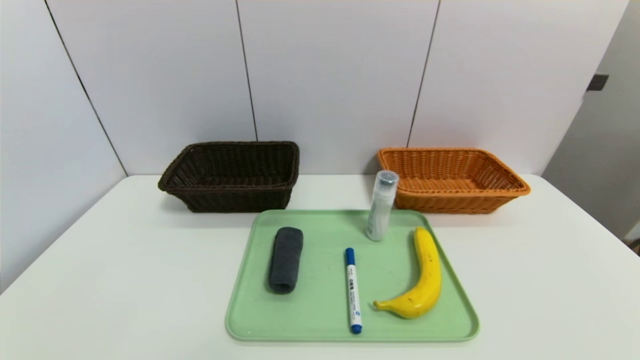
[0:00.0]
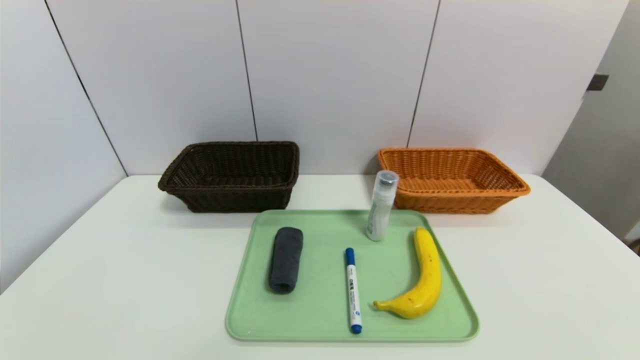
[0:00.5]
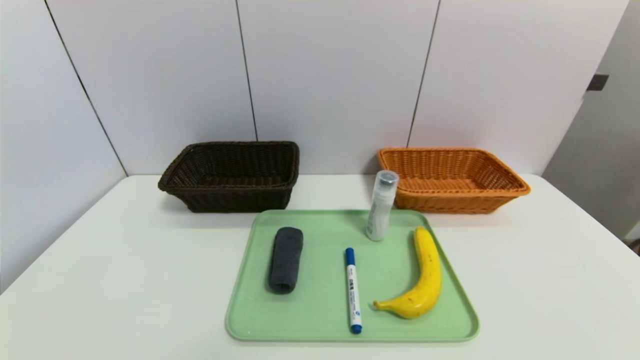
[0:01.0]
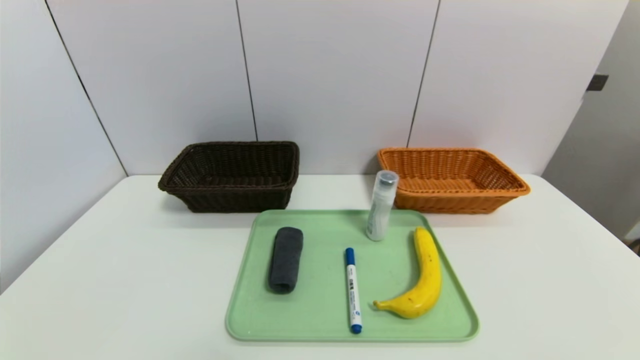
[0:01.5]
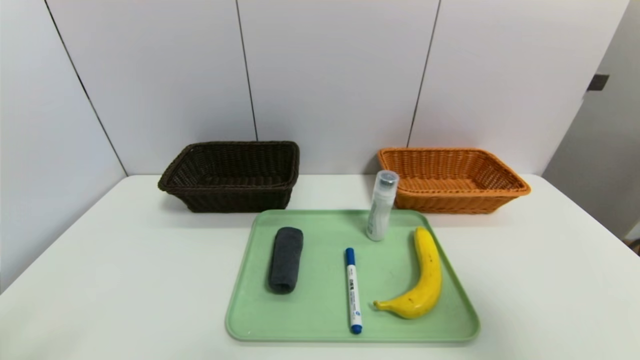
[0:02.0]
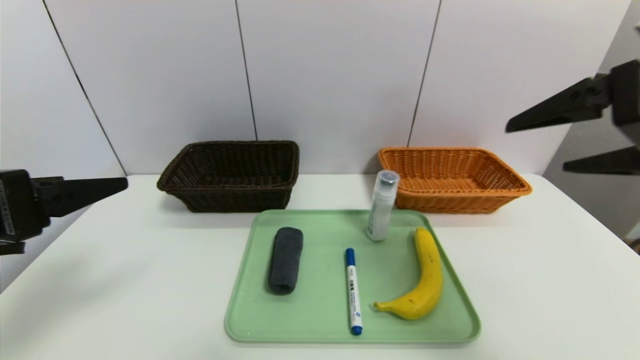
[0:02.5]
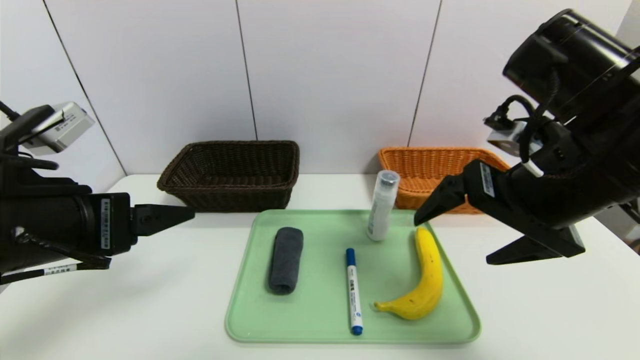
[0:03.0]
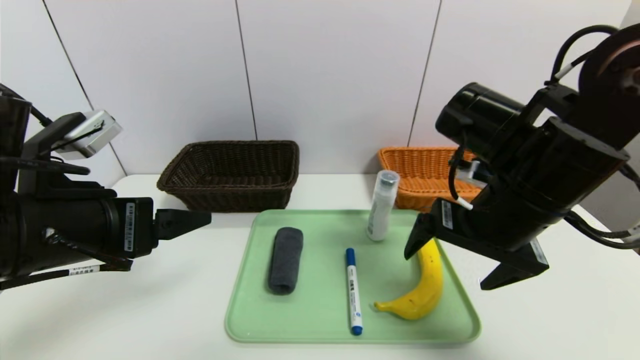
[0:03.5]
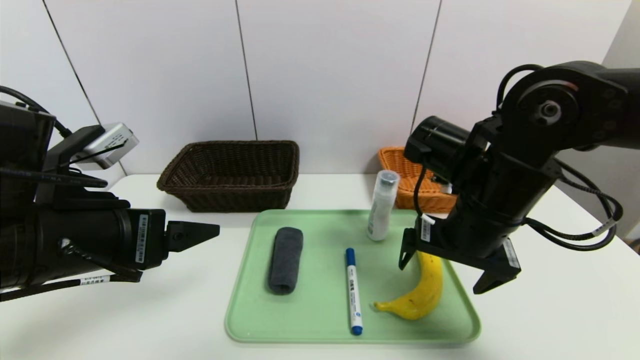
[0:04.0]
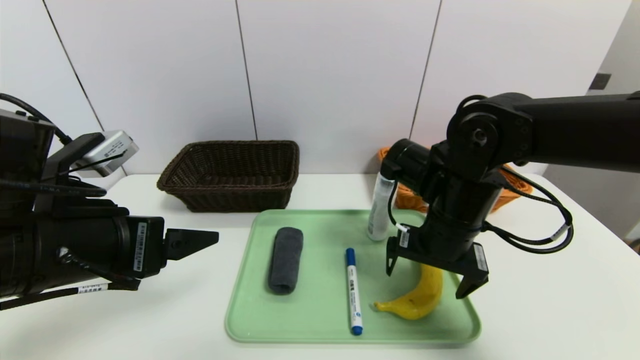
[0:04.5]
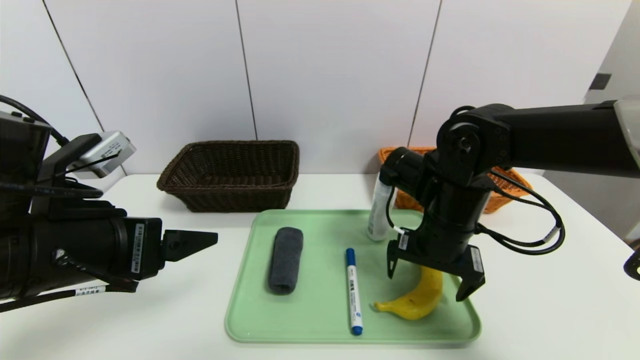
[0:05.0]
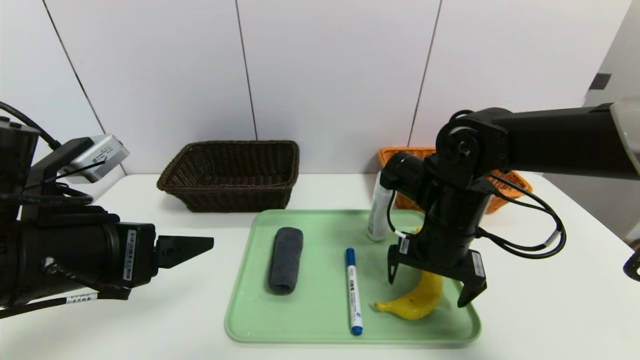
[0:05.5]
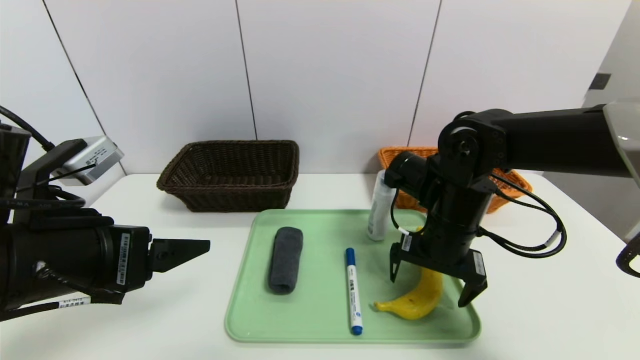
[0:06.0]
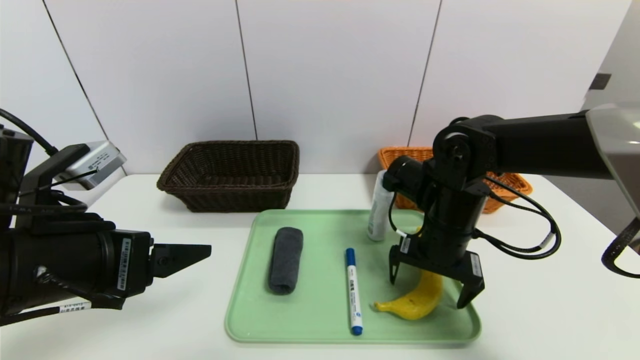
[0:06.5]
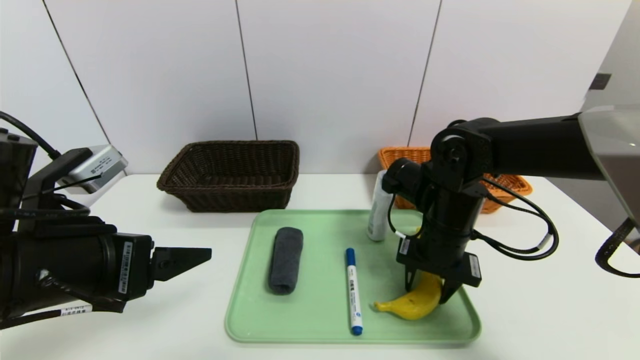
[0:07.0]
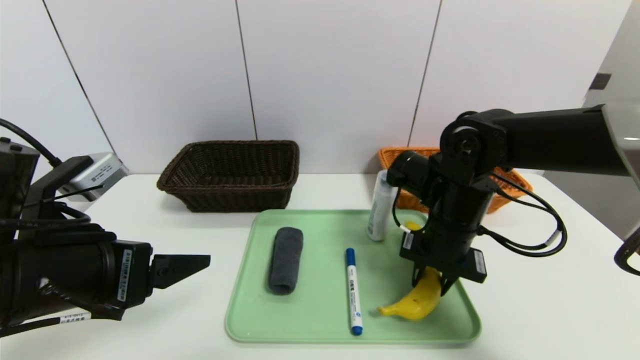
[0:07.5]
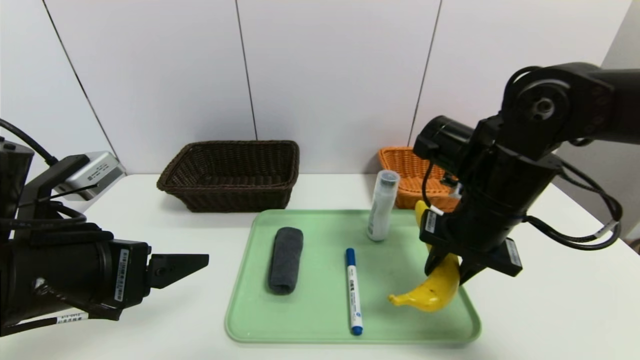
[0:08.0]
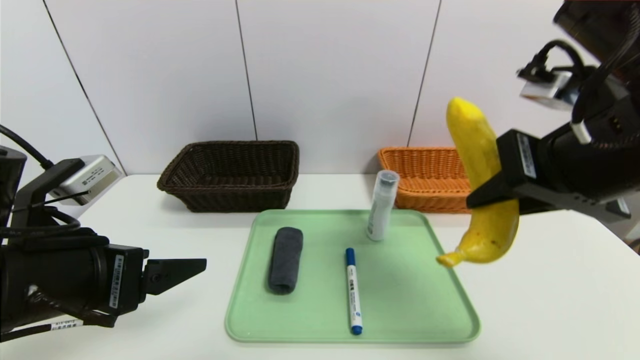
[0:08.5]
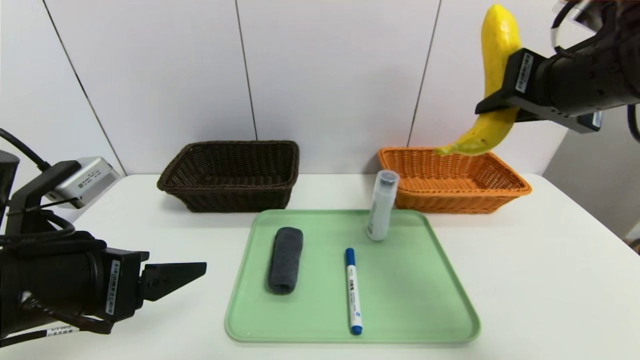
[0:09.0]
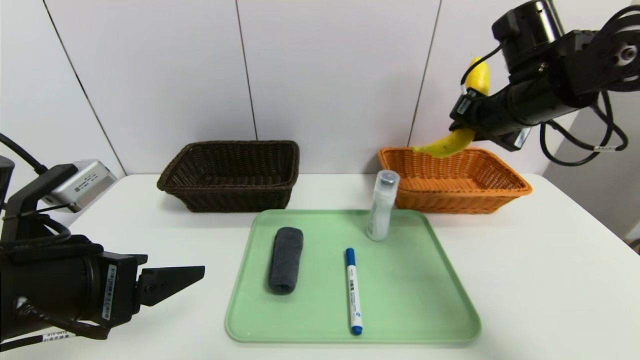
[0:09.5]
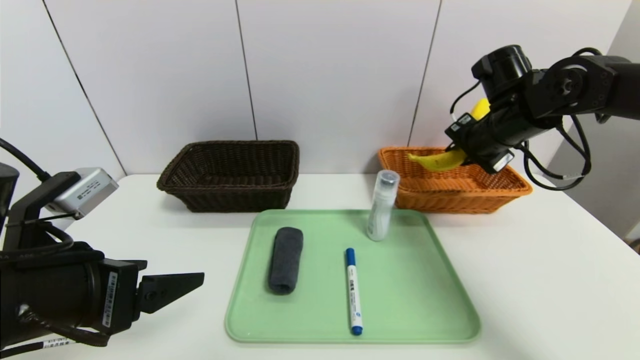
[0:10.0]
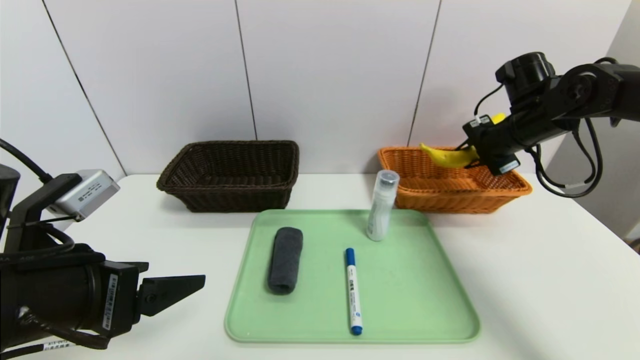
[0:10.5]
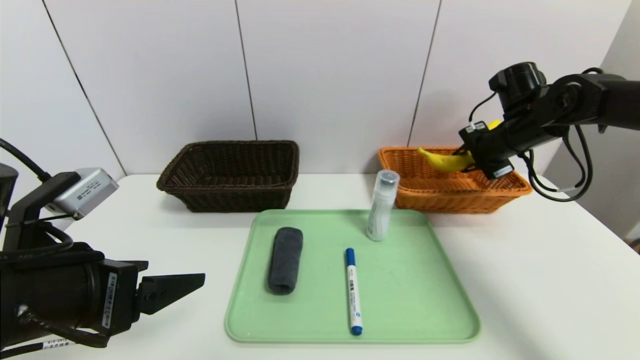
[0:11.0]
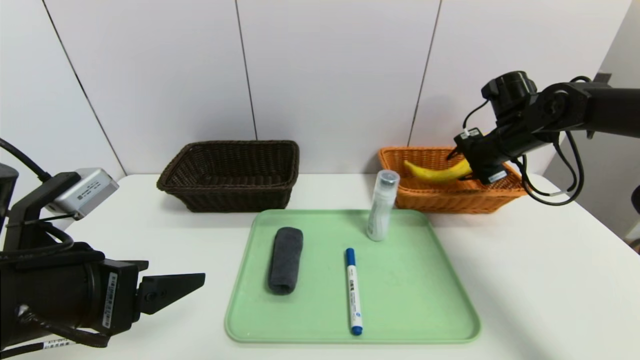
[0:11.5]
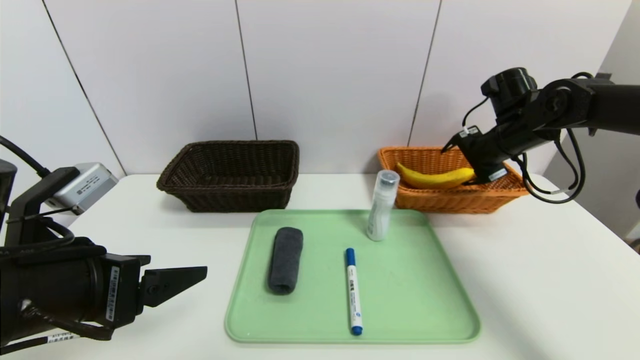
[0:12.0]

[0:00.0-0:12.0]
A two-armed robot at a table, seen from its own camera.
Task of the whole recording: place the food in the right basket with the right gripper, and place the non food items in the left basket with the left gripper.
0:00.0 to 0:02.0: The right gripper travels upward by some 30 cm.
0:02.0 to 0:04.0: The right gripper shifts about 30 cm forward, to the left and downward, while the left gripper shifts some 15 cm forward and to the right.
0:04.0 to 0:06.0: The right gripper is displaced downward by some 5 cm.
0:06.0 to 0:08.0: The right gripper goes about 5 cm upward, and closes up.
0:08.0 to 0:10.0: The right gripper heads forward and to the right, covering about 15 cm.
0:10.0 to 0:12.0: The right gripper changes place by roughly 5 cm, and opens.

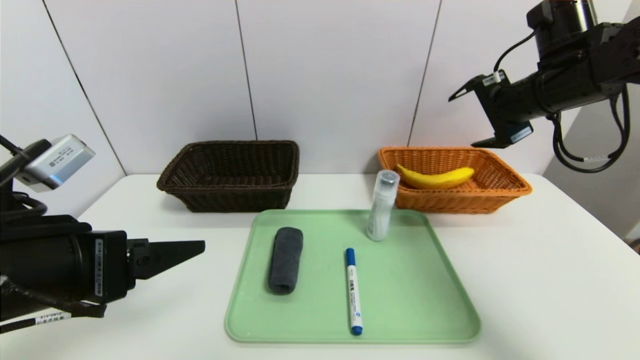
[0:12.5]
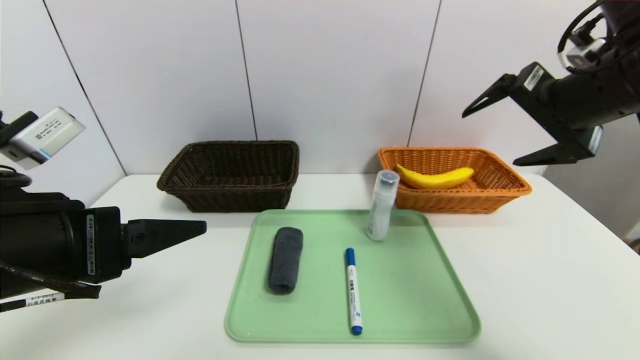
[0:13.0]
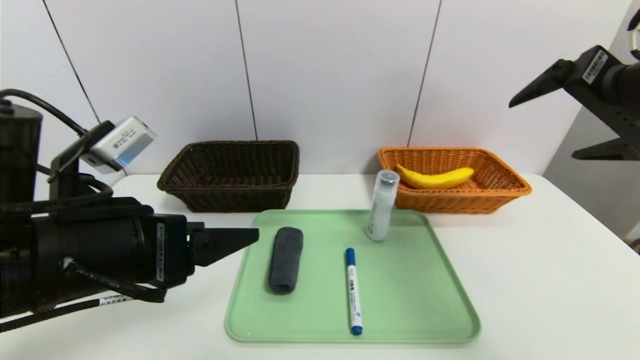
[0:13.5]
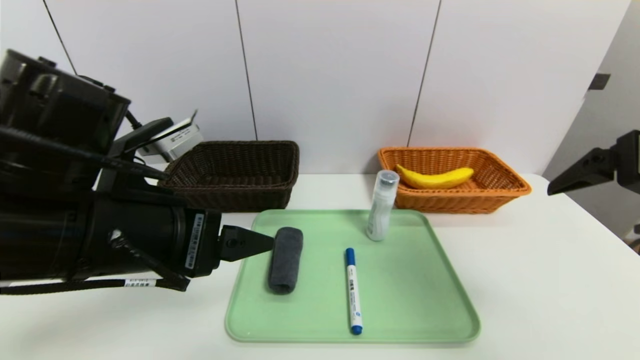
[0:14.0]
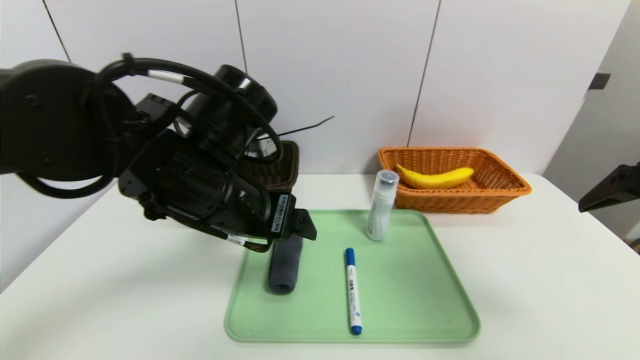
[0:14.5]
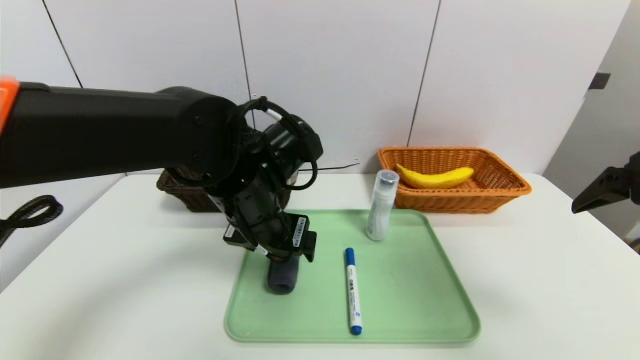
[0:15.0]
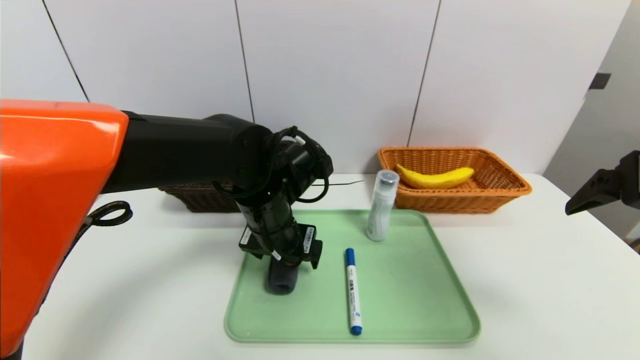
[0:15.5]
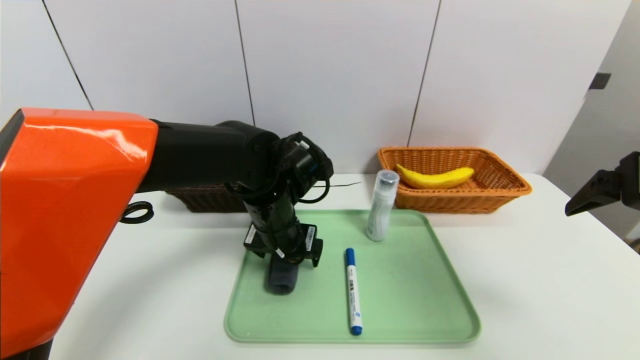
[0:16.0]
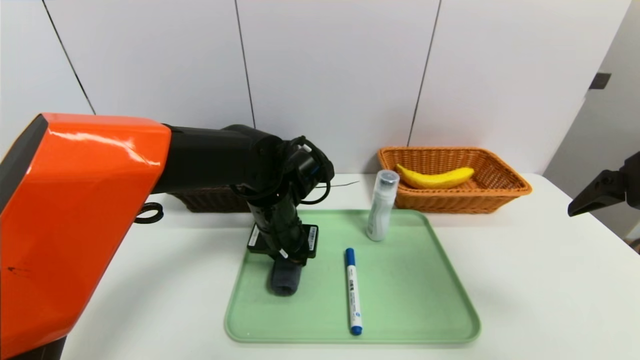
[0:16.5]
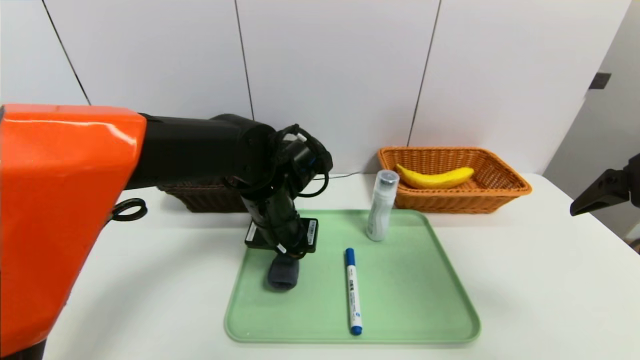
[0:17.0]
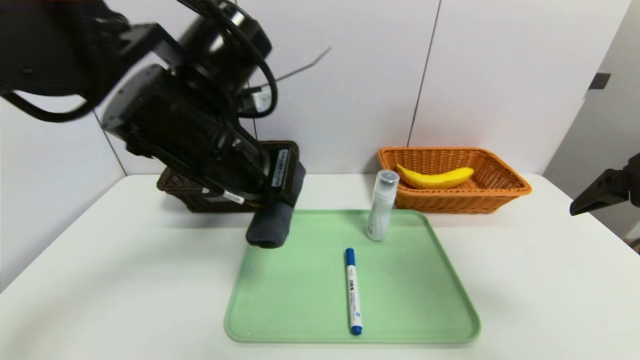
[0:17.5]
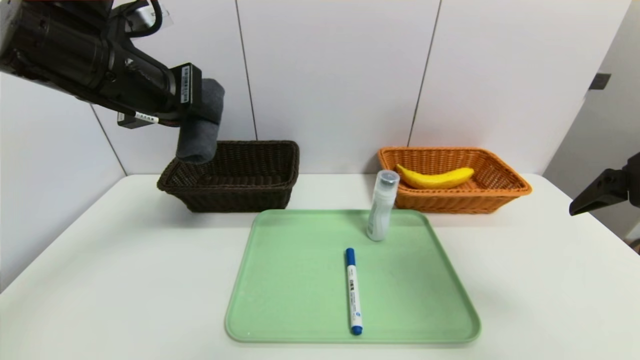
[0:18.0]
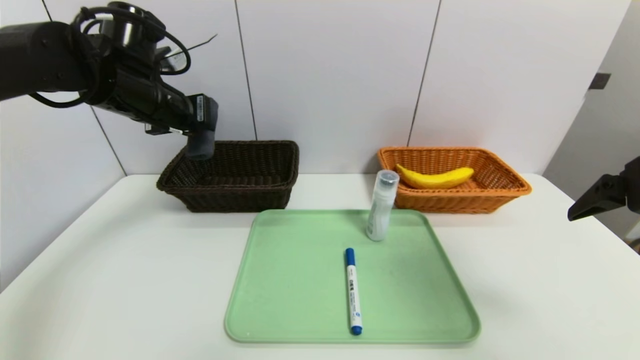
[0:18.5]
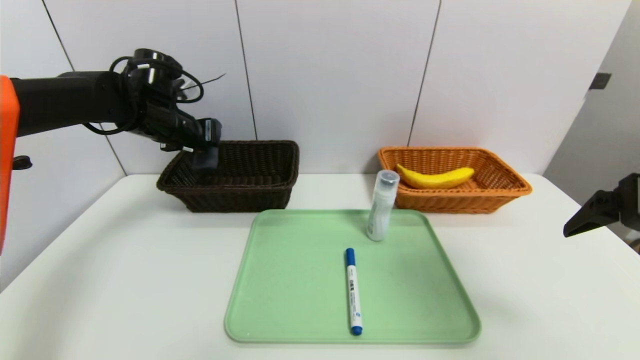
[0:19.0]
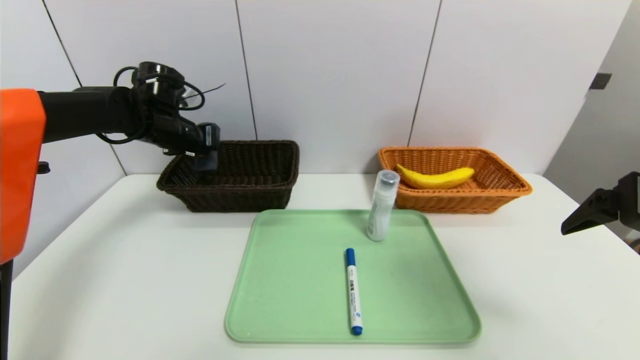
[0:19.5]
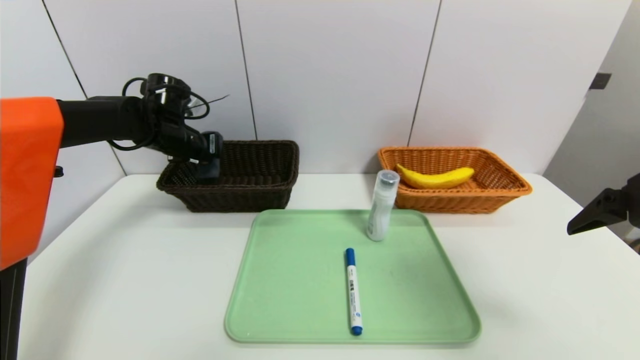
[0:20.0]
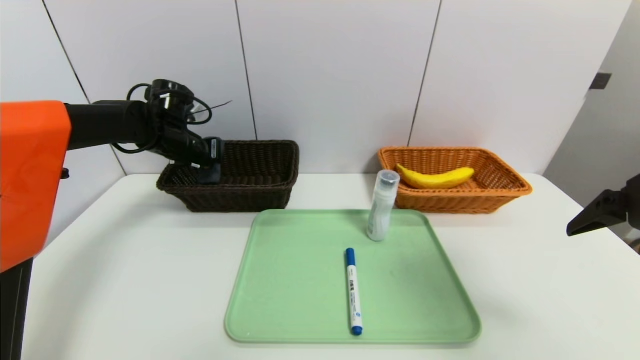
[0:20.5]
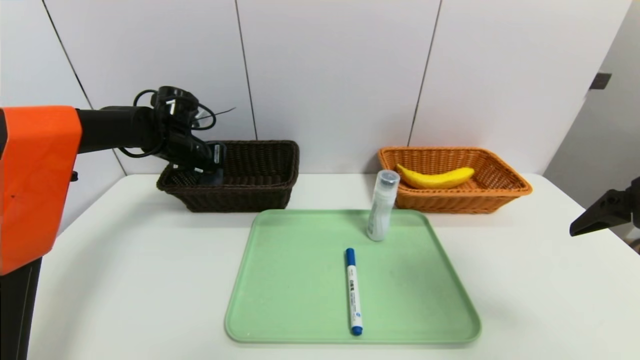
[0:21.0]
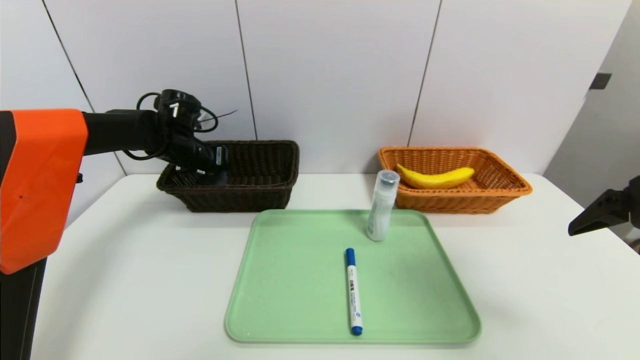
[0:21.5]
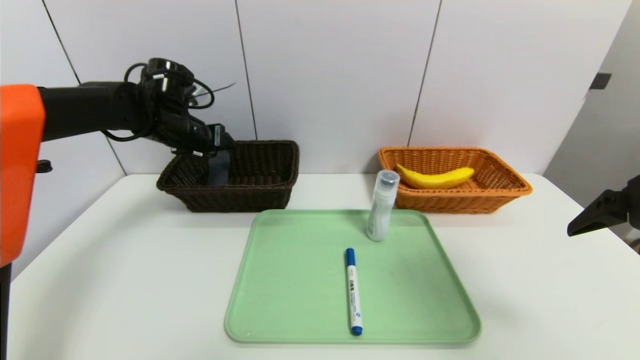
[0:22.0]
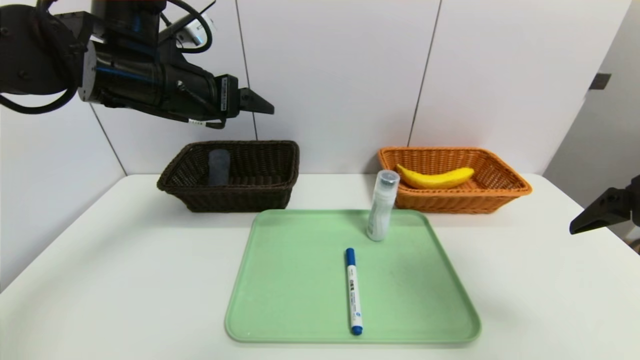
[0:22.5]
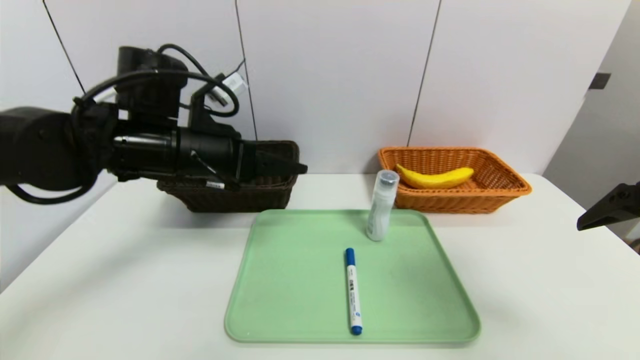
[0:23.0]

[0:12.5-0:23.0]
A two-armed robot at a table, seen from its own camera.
Task of the whole recording: place the food in the right basket with the right gripper, and place the non food items in the left basket with the left gripper.
Step, 0:12.5 to 0:22.0: Grasp the grey towel and put it in the left basket.
0:12.5 to 0:14.5: The right gripper moves backward, roughly 20 cm, while the left gripper travels to the right and forward by some 15 cm.
0:14.5 to 0:16.5: The left gripper shifts about 10 cm downward and forward, and closes its fingers.
0:16.5 to 0:19.0: The left gripper travels to the left, forward and upward by some 25 cm.
0:19.0 to 0:21.0: The left gripper is displaced downward by some 5 cm.
0:21.0 to 0:23.0: The left gripper goes about 20 cm backward and to the right, and opens its fingers.
